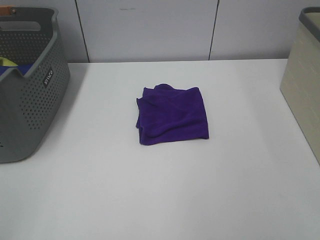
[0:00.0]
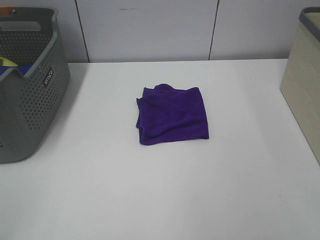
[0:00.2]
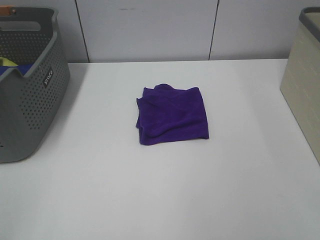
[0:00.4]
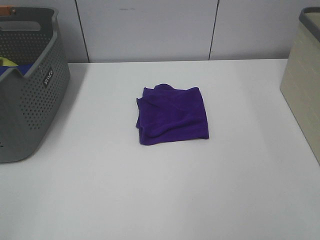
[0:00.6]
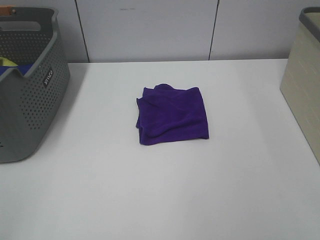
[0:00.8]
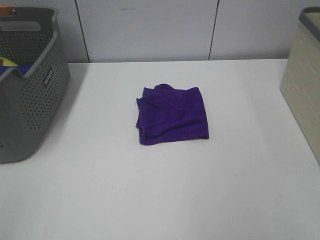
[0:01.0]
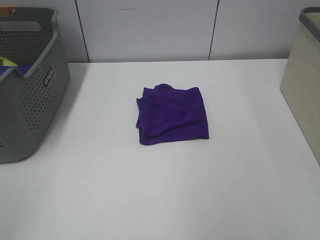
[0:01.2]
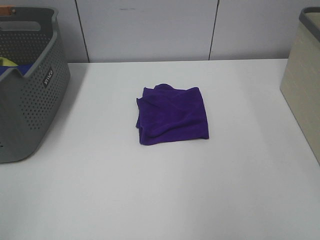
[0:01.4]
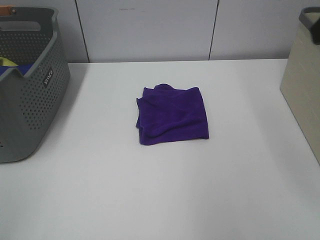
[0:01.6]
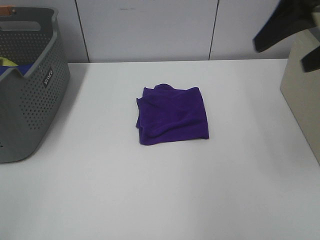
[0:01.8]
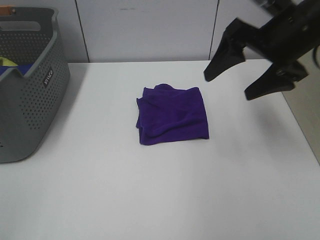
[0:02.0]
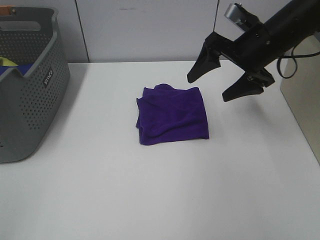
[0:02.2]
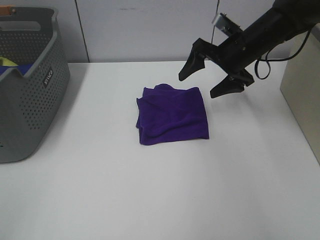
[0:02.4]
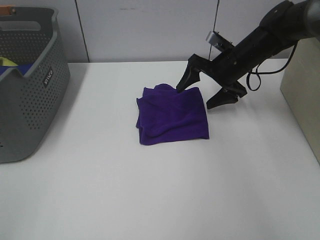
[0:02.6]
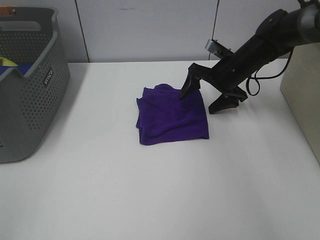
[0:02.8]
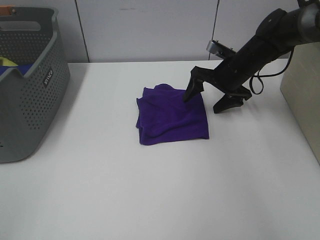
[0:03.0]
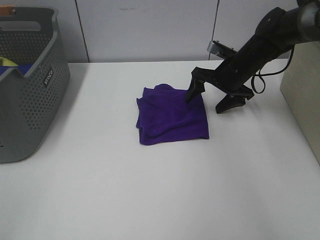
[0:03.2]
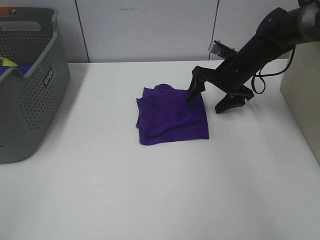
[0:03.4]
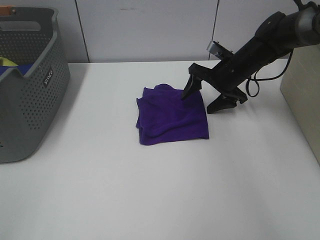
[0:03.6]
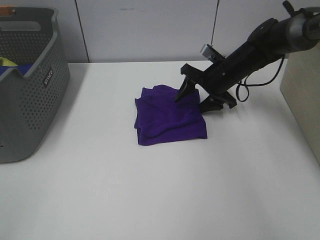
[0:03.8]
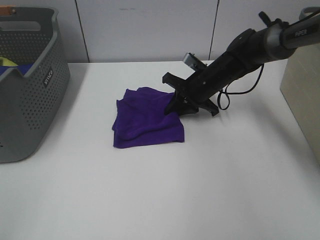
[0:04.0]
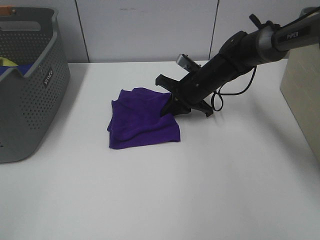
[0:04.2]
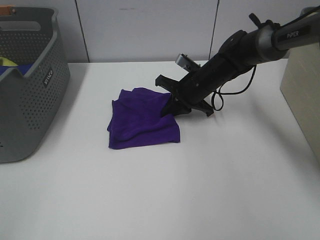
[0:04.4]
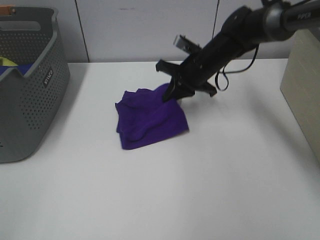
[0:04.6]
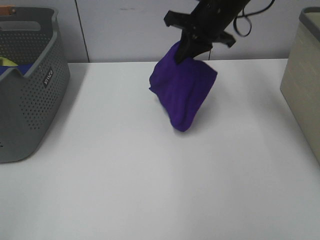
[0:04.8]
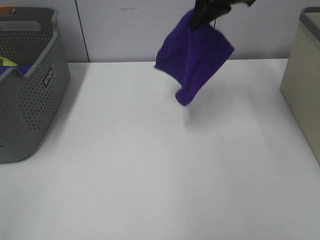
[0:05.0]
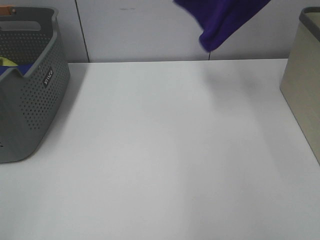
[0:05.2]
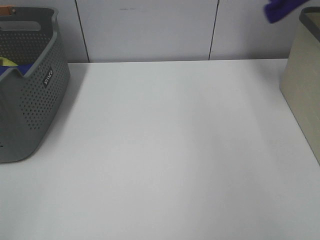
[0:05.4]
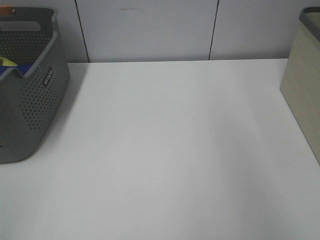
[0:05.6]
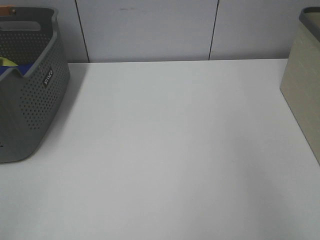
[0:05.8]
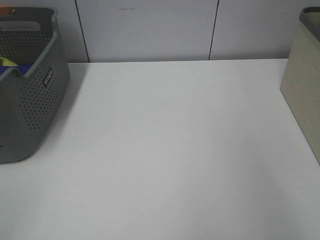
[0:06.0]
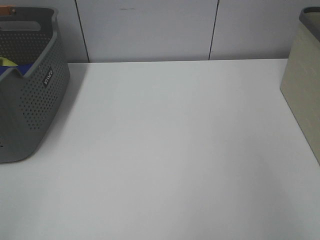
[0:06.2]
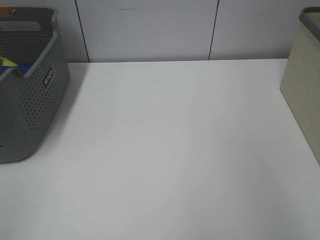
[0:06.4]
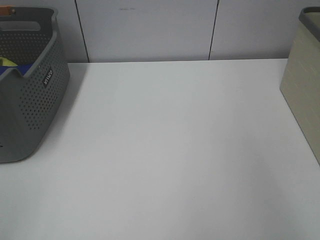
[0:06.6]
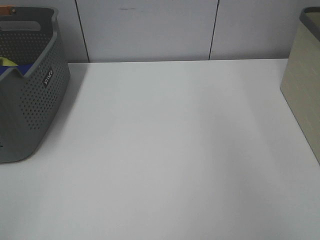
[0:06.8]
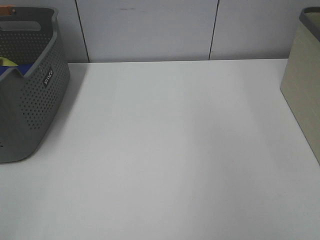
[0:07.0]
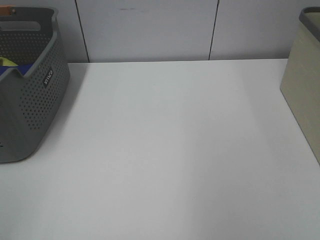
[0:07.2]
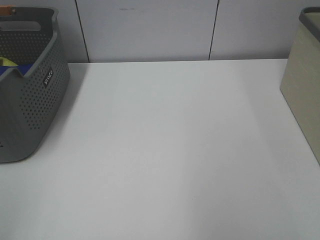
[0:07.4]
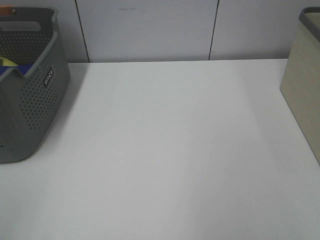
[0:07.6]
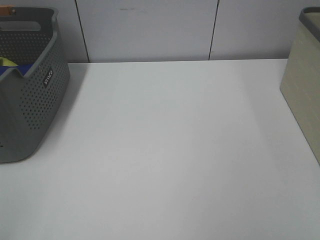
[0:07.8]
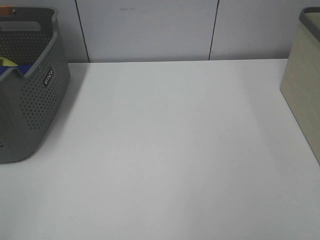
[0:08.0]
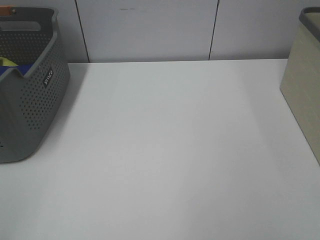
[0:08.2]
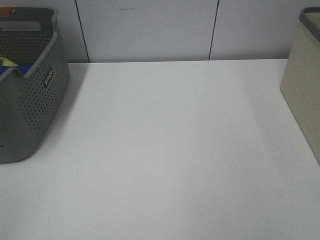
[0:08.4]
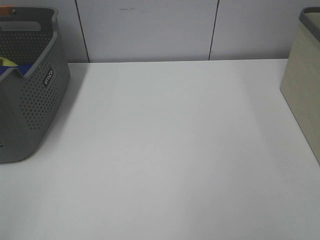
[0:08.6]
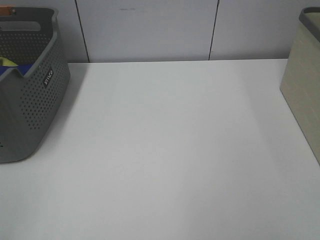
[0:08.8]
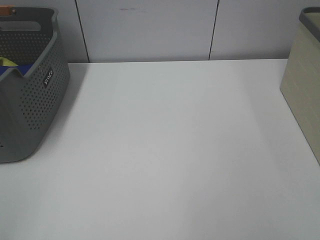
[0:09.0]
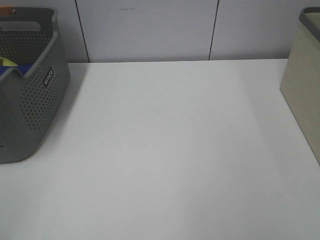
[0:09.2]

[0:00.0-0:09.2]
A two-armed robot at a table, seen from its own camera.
Step, 0:00.0 to 0:04.2: Right hand: grab the folded purple towel.
Step, 0:04.4 to 0:06.4: Right hand: place the purple towel in right basket.
0:01.6 to 0:03.0: The right gripper moves downward and forward, about 35 cm.
0:03.0 to 0:04.6: The right gripper is displaced to the left by approximately 10 cm, and closes its fingers.
0:04.6 to 0:06.2: The right gripper heads to the right and upward, covering approximately 40 cm, and opens its fingers.

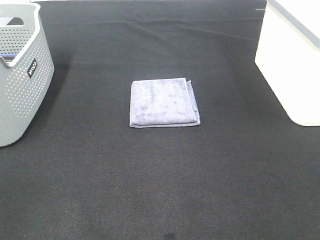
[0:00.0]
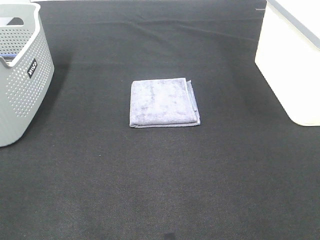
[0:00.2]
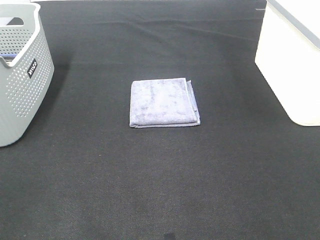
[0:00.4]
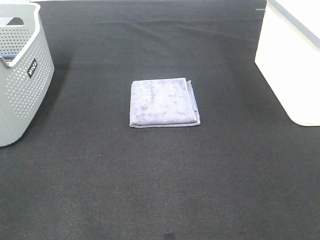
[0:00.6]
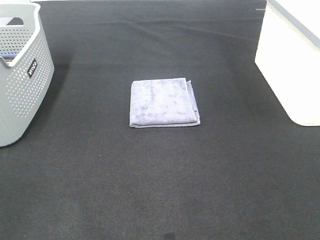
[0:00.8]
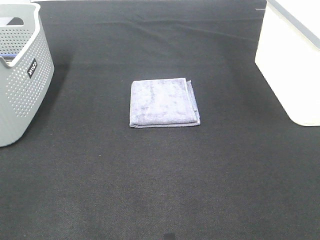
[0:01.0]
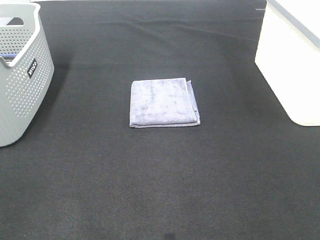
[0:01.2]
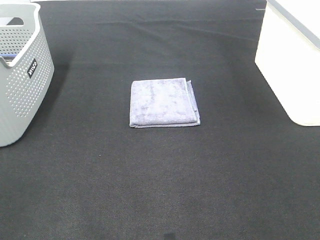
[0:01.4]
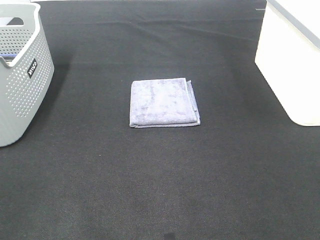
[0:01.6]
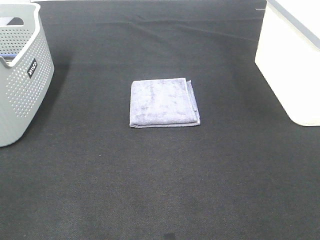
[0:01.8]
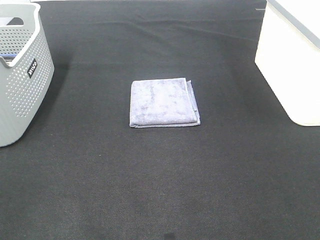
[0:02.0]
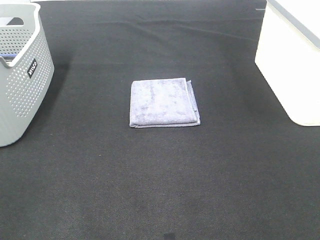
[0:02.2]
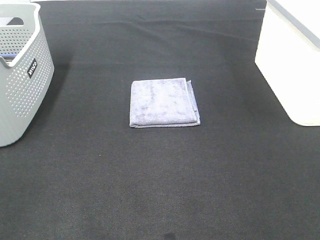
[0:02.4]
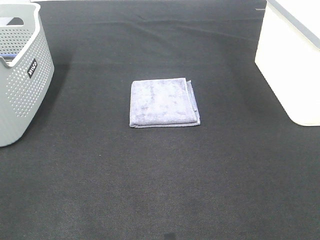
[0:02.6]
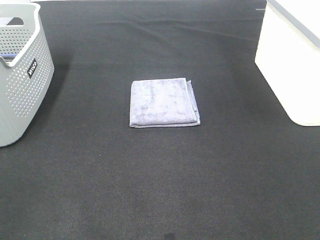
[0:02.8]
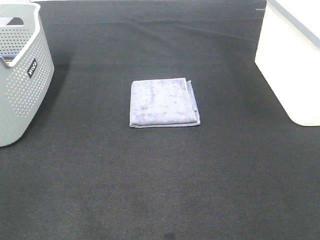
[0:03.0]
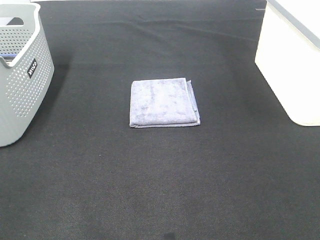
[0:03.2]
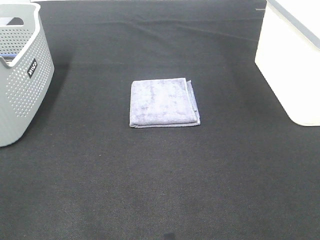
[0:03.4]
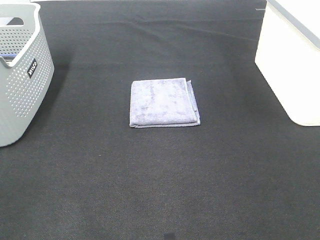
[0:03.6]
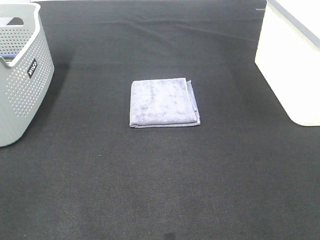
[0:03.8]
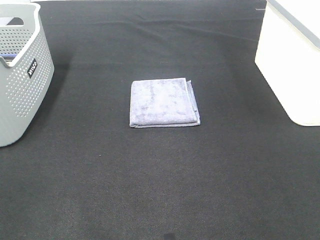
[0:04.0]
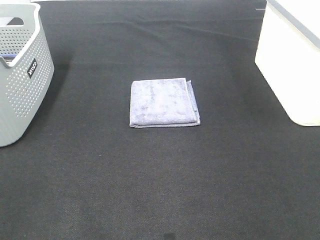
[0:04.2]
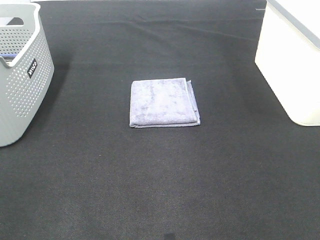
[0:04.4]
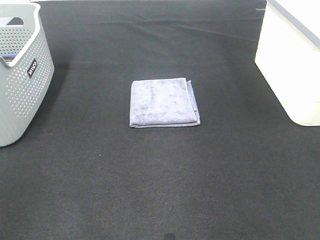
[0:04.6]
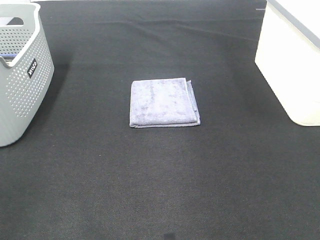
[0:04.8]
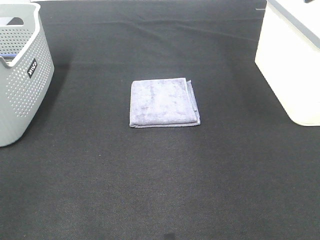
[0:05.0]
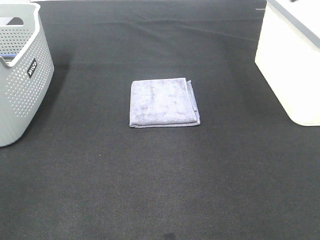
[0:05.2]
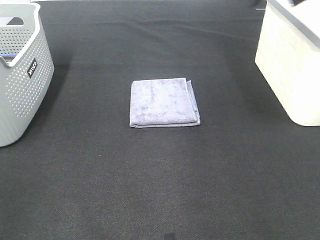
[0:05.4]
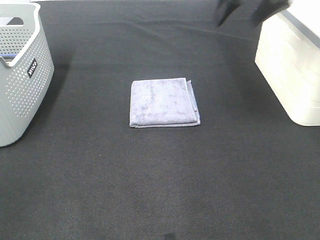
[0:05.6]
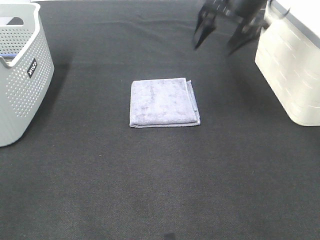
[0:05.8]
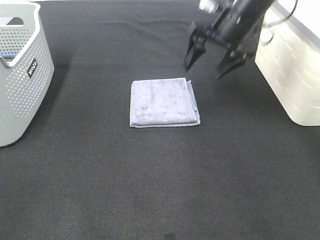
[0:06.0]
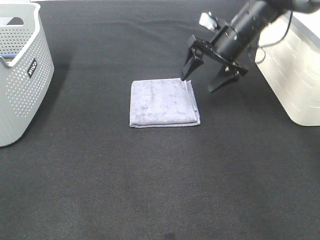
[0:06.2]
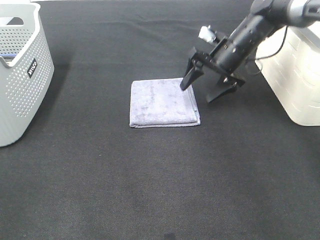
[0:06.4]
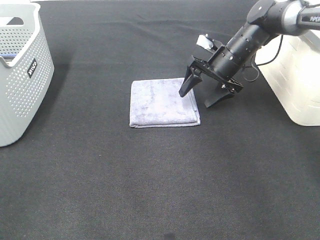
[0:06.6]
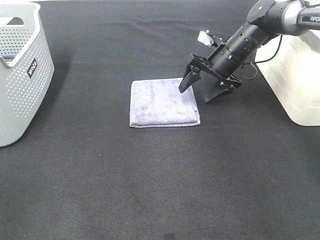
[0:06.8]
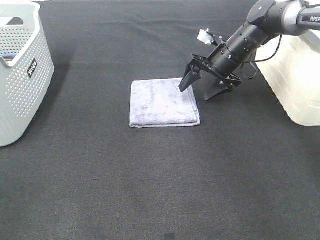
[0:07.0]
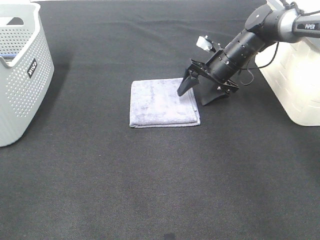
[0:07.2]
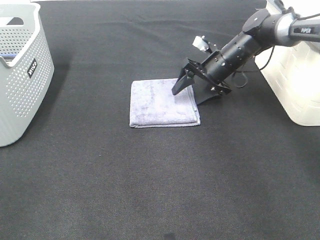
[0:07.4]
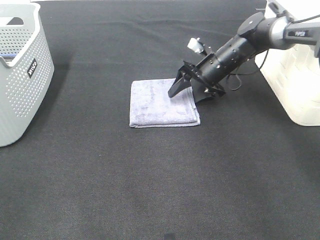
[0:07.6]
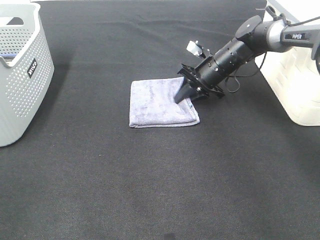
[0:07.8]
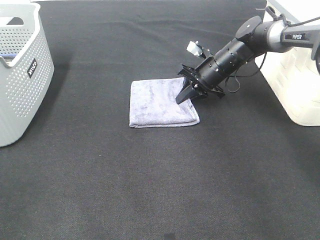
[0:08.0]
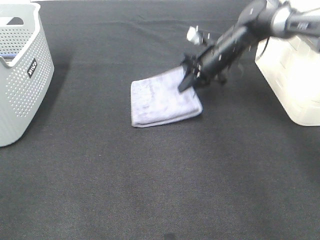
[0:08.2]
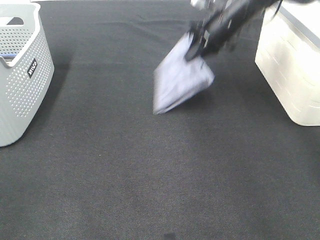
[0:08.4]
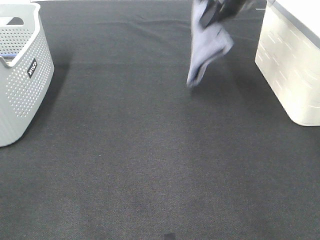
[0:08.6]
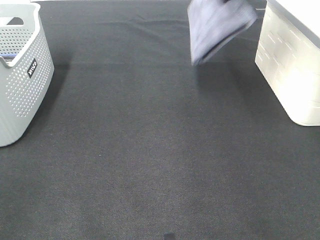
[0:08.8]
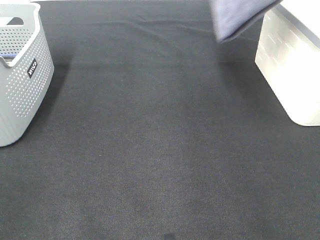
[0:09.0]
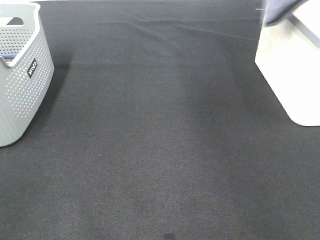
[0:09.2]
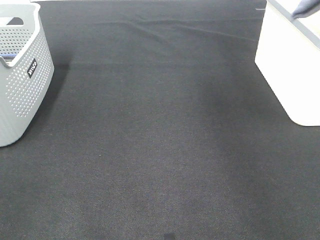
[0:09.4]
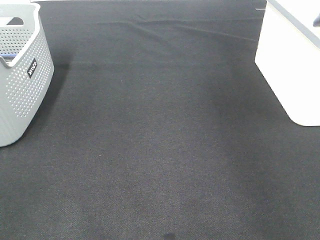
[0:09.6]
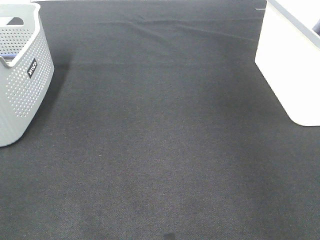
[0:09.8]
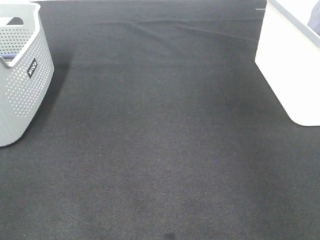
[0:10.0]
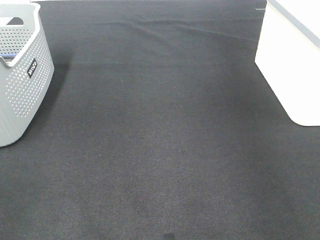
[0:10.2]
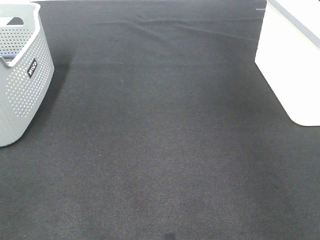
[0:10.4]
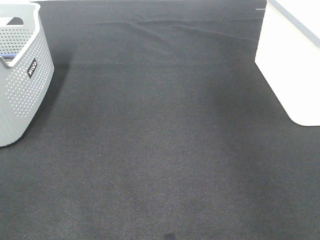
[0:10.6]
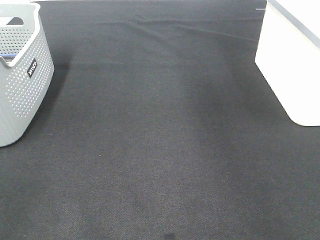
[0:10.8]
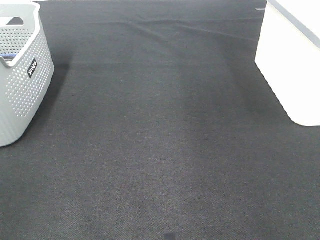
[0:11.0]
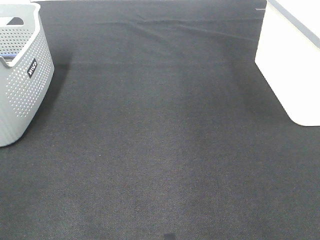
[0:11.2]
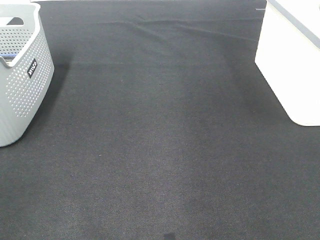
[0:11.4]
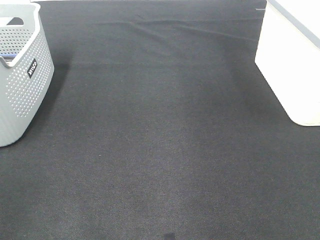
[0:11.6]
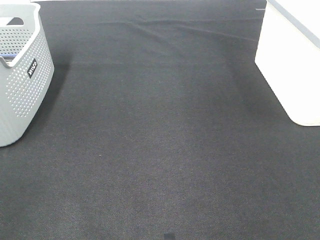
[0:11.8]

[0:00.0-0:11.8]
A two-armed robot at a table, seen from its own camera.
Step, 0:00.0 to 0:07.8: Right hand: grab the folded grey towel.
Step, 0:08.0 to 0:10.2: Right hand: place the grey towel in right basket.
0:00.0 to 0:03.0: Both grippers stay put.
0:04.4 to 0:06.0: The right gripper goes approximately 40 cm forward, downward and to the left.
0:06.0 to 0:07.4: The right gripper moves downward, roughly 10 cm.
0:07.4 to 0:08.8: The right gripper is displaced upward by approximately 25 cm, and closes up.
0:08.8 to 0:10.4: The right gripper is displaced to the right by approximately 20 cm, and opens its fingers.

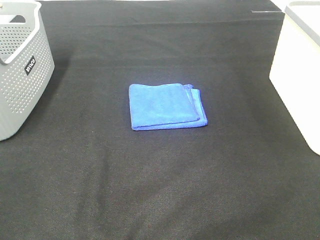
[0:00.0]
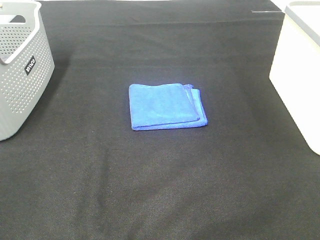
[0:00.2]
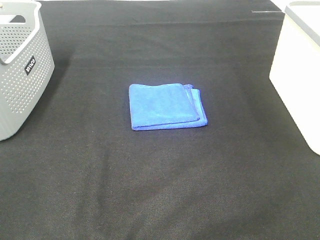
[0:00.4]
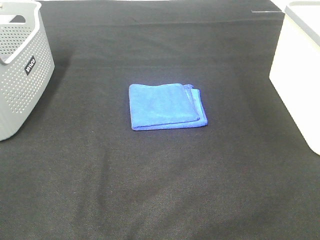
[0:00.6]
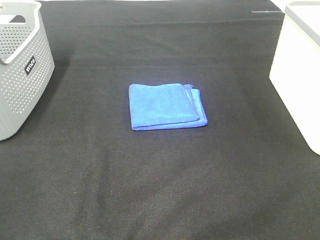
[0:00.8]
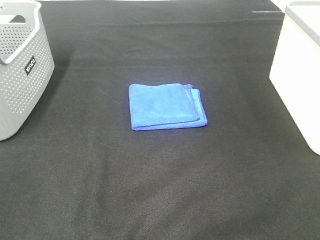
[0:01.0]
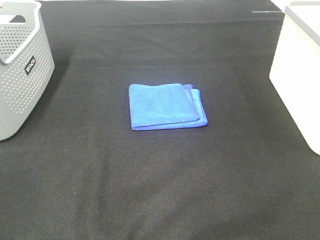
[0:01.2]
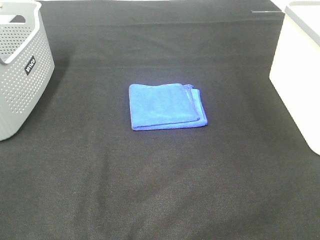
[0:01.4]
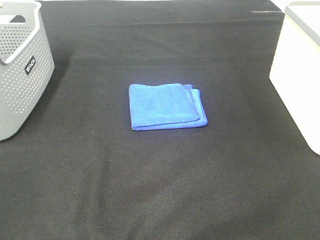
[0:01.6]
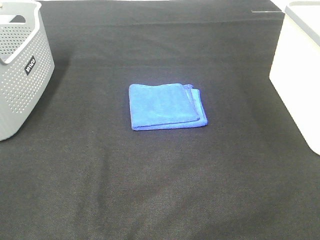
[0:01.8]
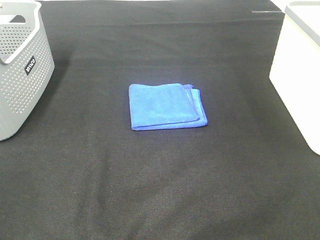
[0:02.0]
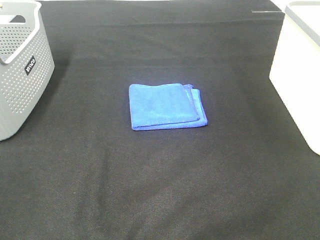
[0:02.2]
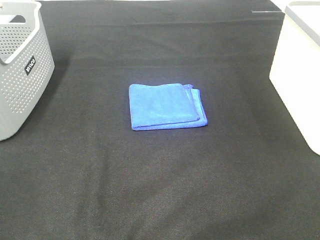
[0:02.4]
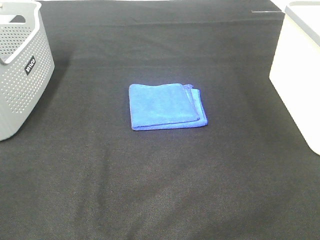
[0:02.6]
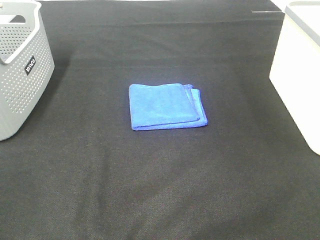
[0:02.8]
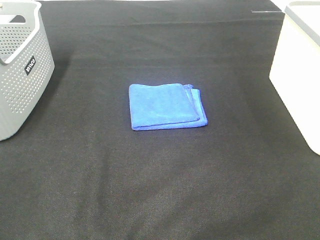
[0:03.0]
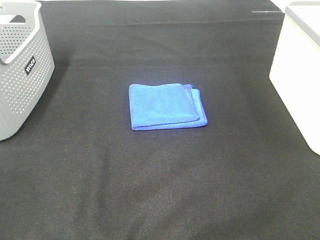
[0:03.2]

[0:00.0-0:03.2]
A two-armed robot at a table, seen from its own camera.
0:00.0 to 0:03.2: The two grippers keep their place.
